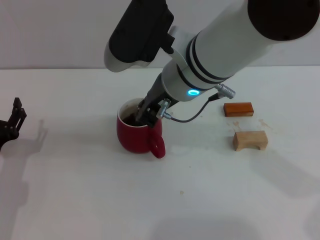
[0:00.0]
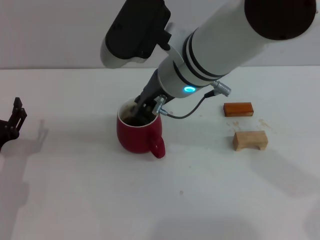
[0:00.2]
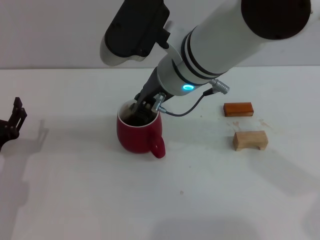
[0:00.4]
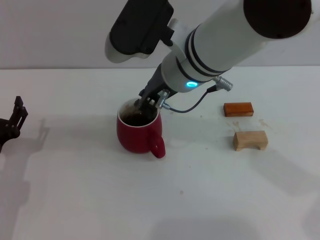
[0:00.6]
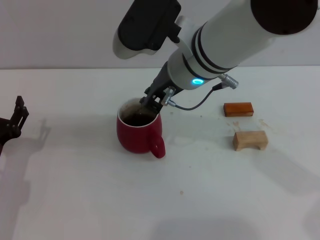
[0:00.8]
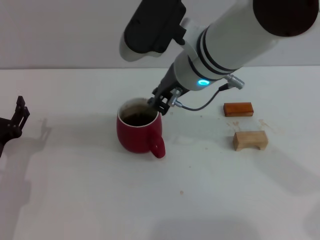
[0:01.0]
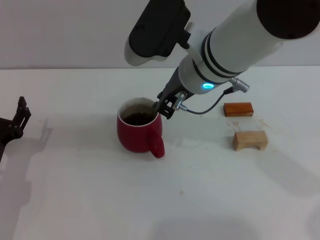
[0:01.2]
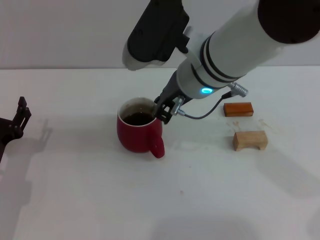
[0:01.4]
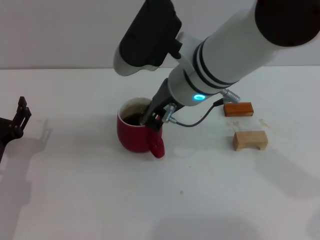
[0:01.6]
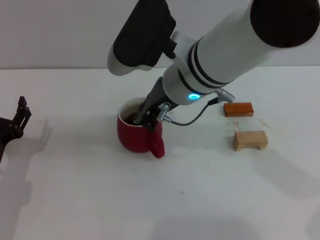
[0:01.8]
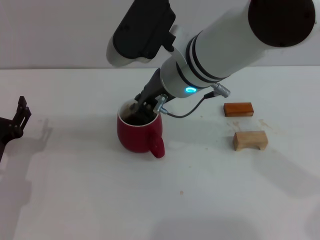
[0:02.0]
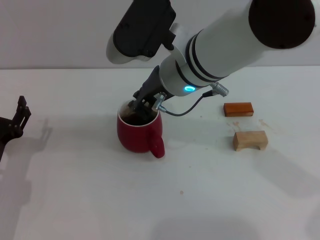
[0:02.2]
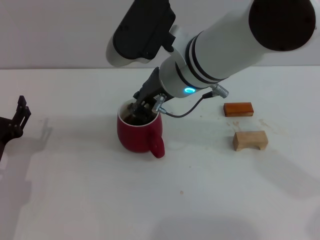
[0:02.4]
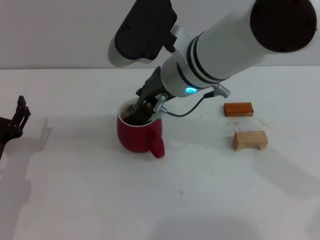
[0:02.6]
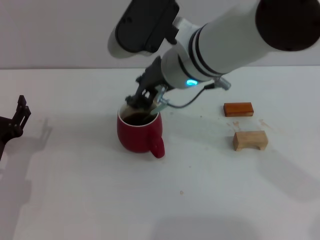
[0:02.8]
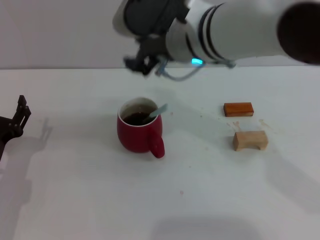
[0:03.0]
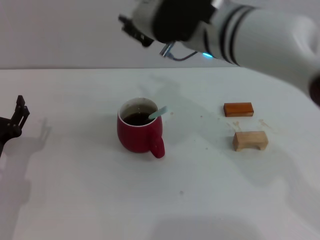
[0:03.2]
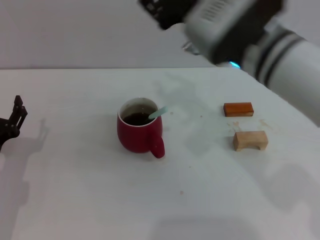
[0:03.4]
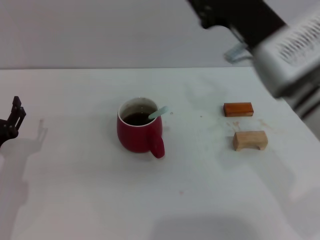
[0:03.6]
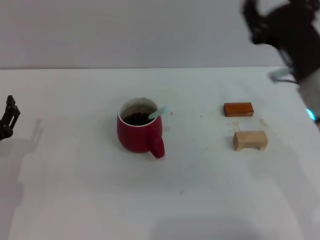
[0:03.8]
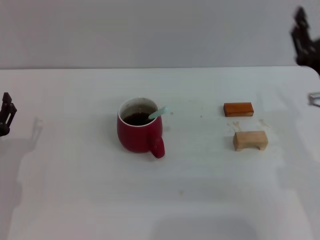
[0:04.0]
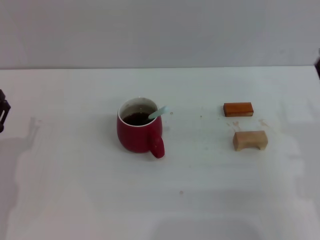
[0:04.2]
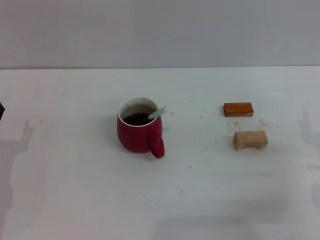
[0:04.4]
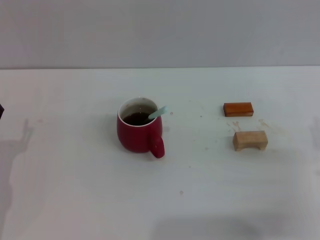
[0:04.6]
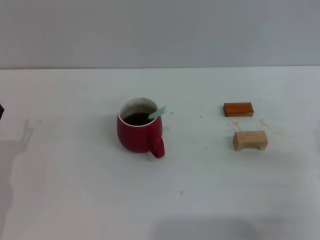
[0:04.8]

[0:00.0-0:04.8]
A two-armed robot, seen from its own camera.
Task of the whole recording: Move the red cup to the center, lift the blue spoon, stir it three times in the cup, and put the spoon into the cup.
Step, 0:00.0 to 0:03.0: Stir the coffee in the cup with the right gripper.
0:00.0 to 0:01.6: The grippers move only a little.
0:01.6 to 0:03.2: The right gripper opens up.
0:03.2 to 0:04.8: The right gripper moves to the right, downward and backward, roughly 30 cm, and opens.
